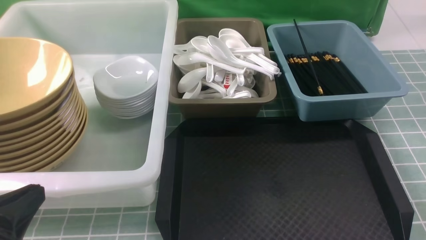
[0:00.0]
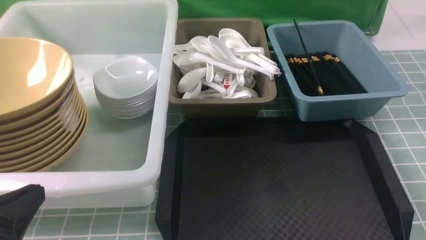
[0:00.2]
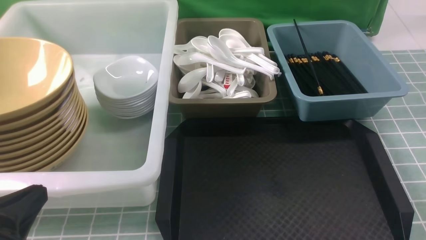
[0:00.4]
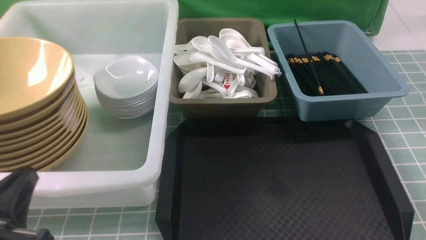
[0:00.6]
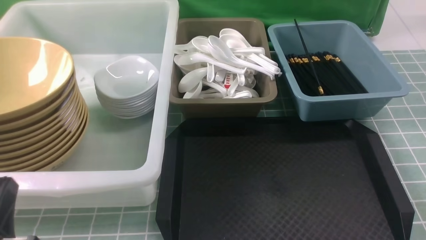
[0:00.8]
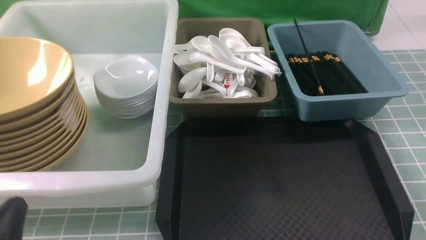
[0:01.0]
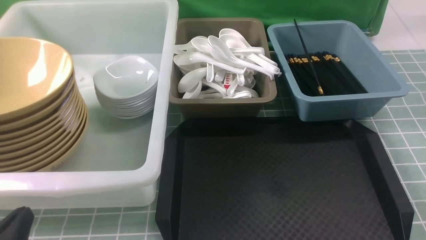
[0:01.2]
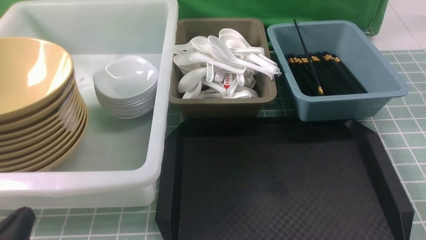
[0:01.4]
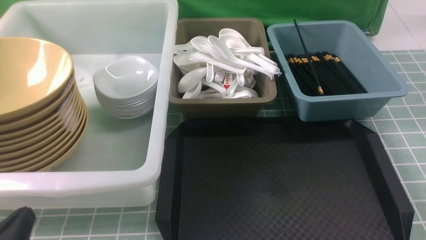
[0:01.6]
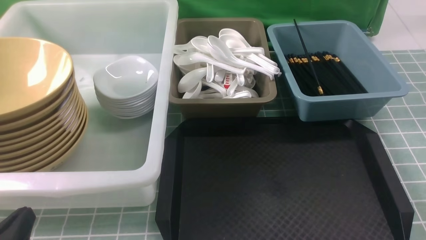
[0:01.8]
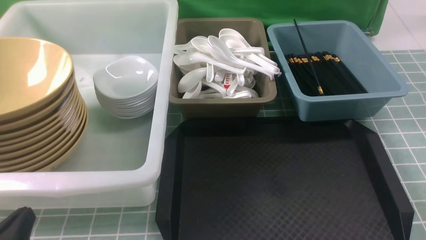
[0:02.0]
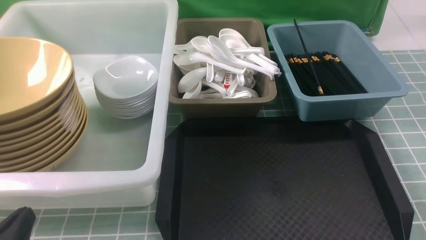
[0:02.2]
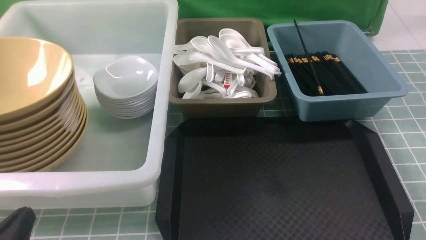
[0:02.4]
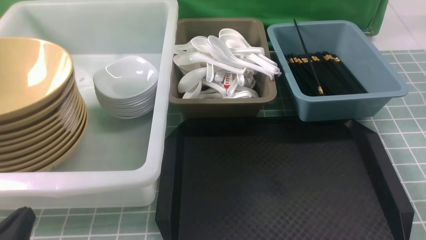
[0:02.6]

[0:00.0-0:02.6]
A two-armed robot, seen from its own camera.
Task of the whole recording: on blue table put chopsticks spoon bowls plates into blue grey white boxes.
0:00.0 to 0:01.2: The left gripper shifts roughly 10 cm downward.
0:01.2 to 0:02.6: Both grippers stay about where they are.
